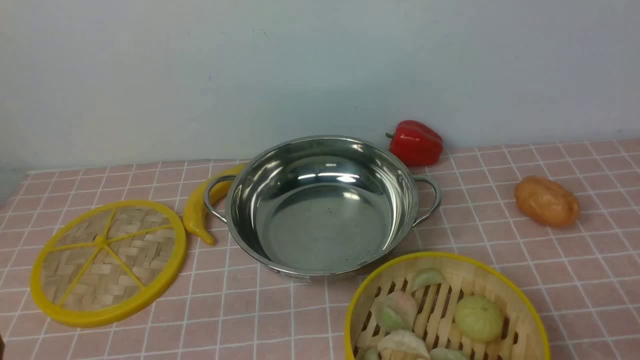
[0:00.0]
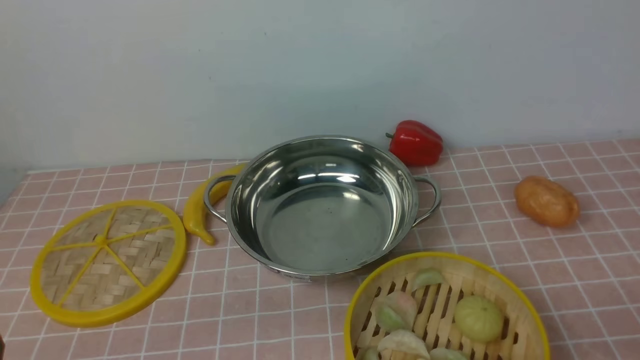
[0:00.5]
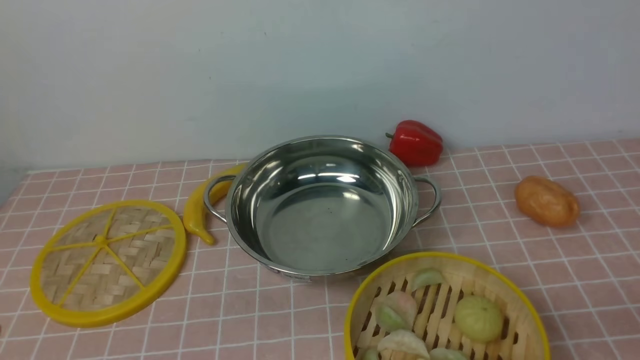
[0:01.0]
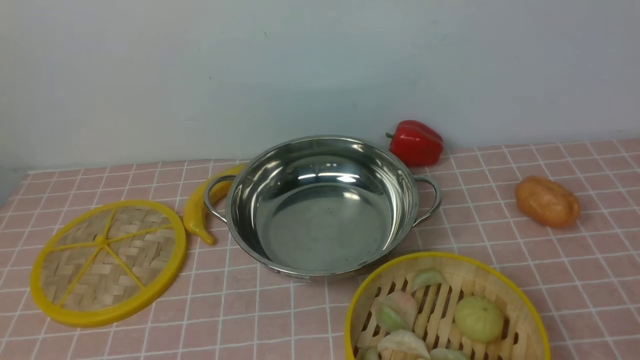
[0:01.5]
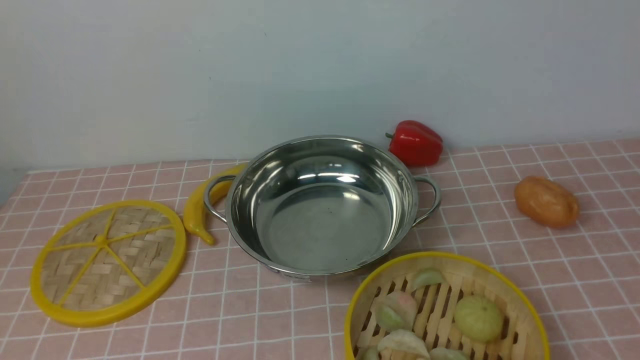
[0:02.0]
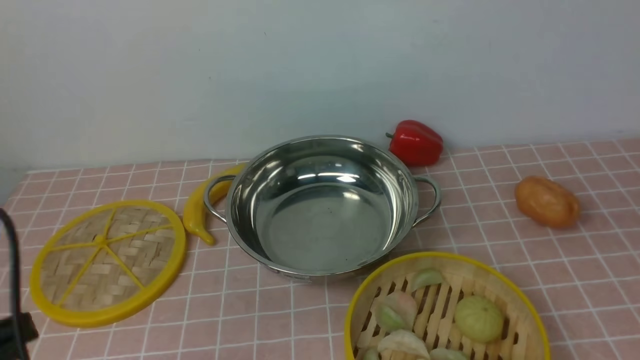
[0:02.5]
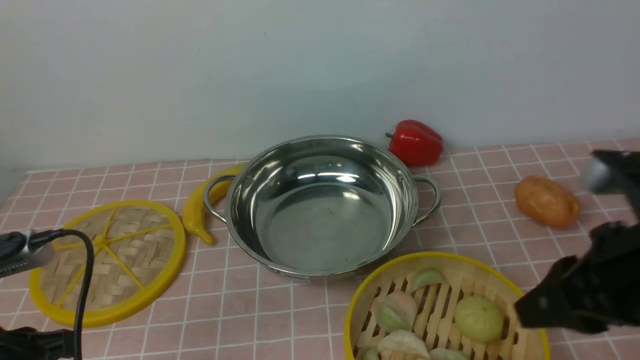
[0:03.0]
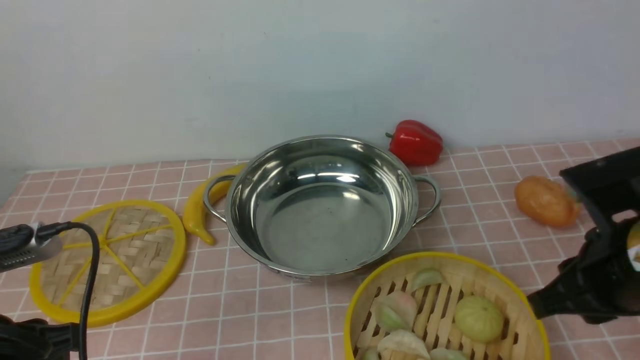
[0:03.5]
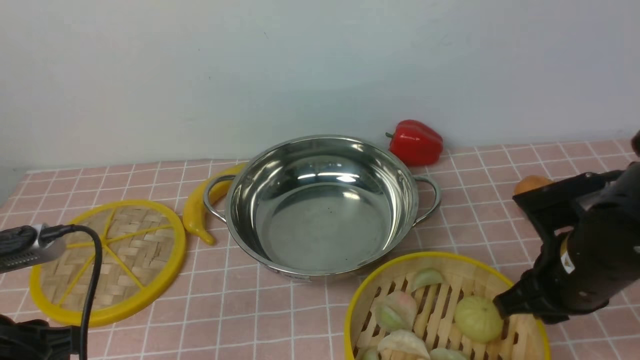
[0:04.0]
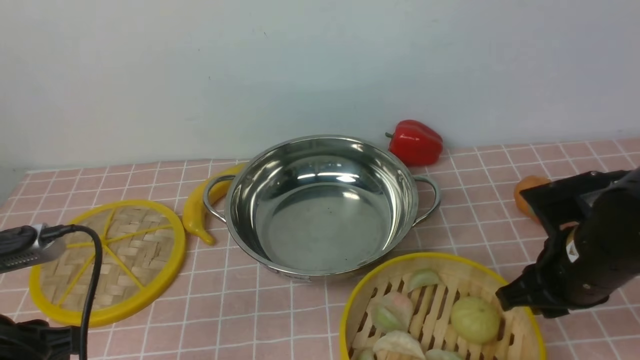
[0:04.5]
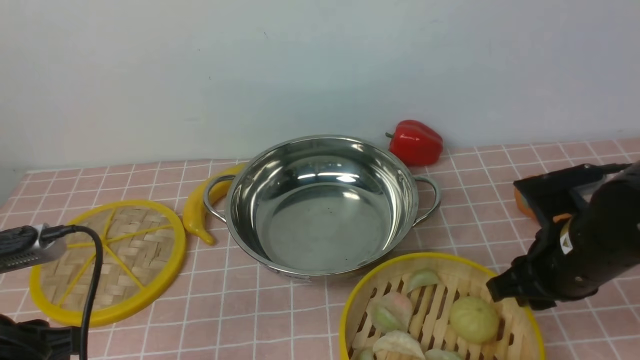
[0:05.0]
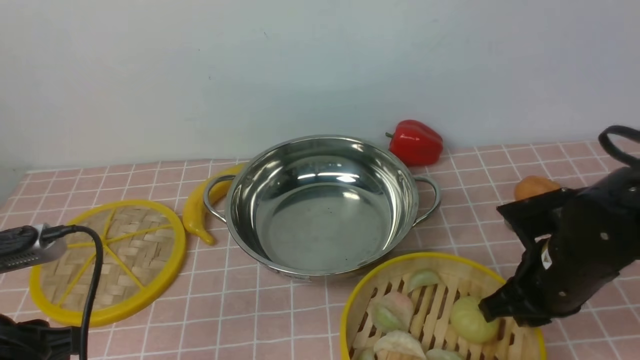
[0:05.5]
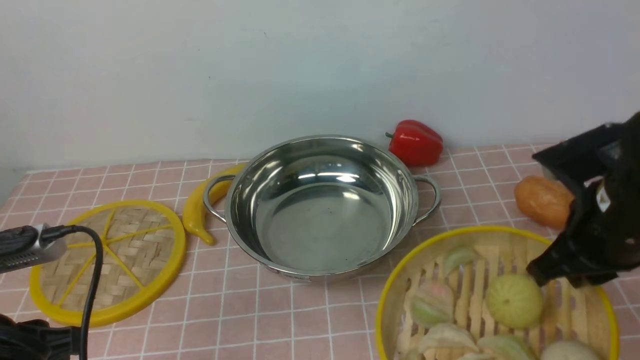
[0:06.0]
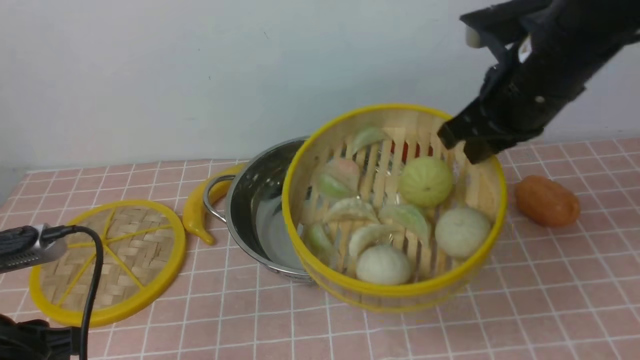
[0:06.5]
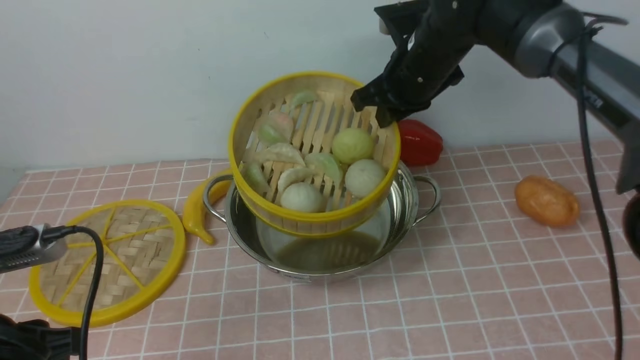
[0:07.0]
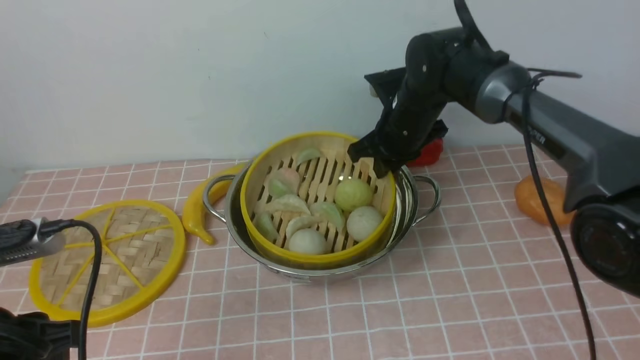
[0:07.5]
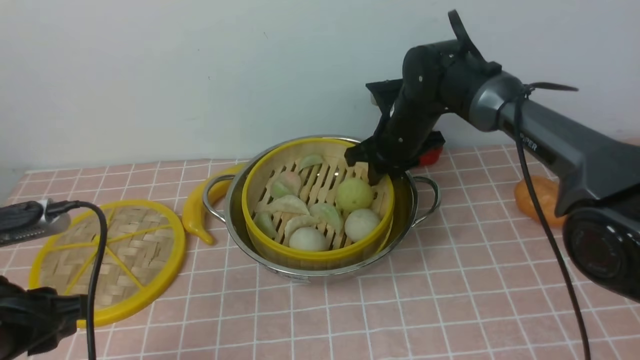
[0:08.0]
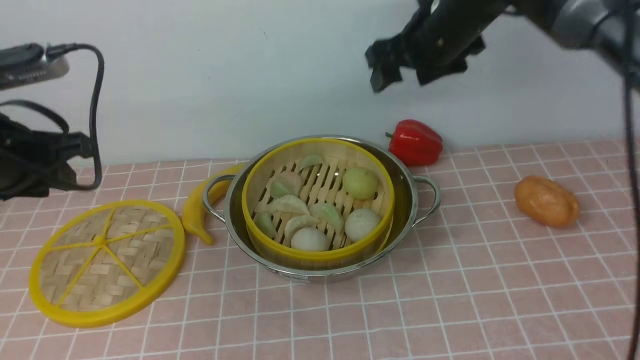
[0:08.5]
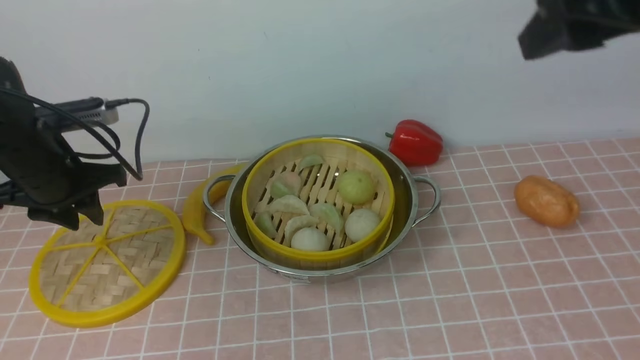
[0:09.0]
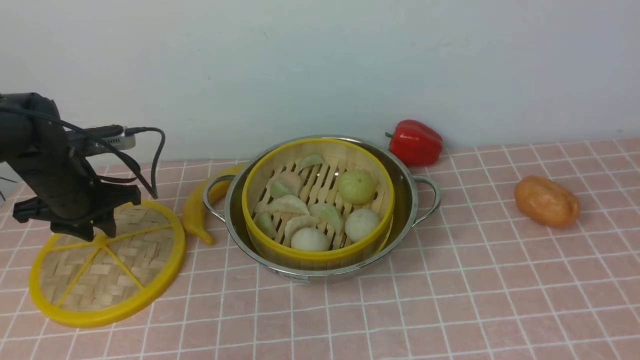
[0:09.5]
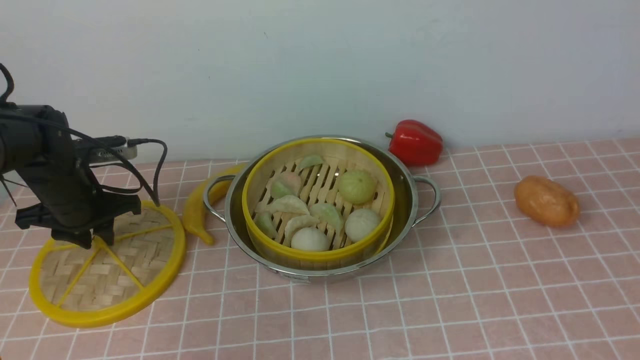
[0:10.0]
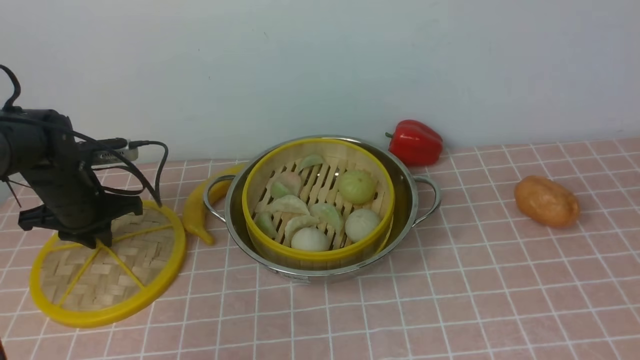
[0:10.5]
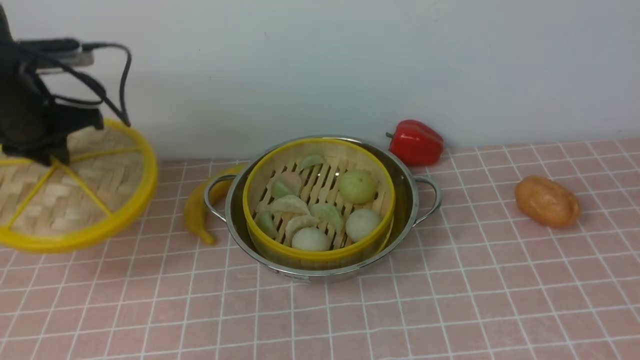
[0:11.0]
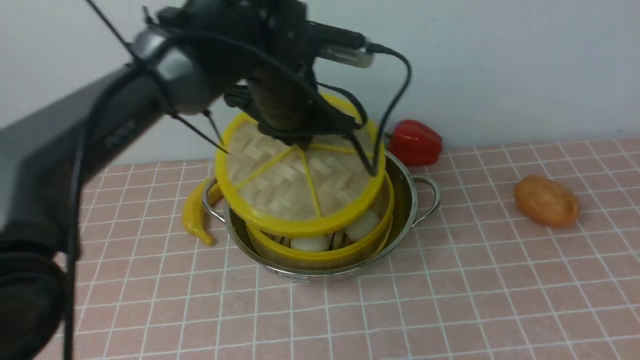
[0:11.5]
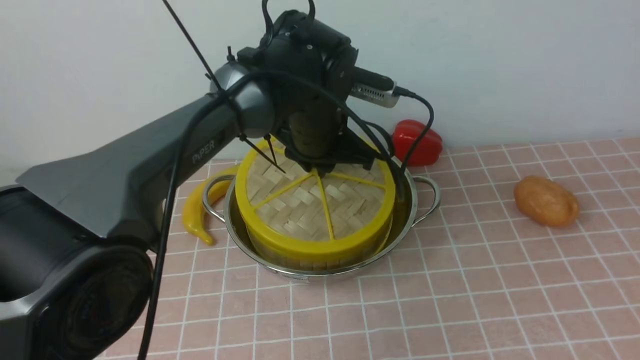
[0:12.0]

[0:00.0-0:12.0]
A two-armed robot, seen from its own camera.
Task of the whole recording: place the steamer in the pot on the pink tablecloth, and put the lid on the steamer.
Step, 0:00.0 to 0:05.5: use the right arm to lift the steamer closest to it.
Step, 0:06.0 to 0:08.0: use the right arm to put the steamer into the iron steamer pot in the middle.
Step, 0:08.5 to 0:10.5: use the left arm to lift the lid of the steamer.
0:02.0 to 0:04.0: The left gripper moves downward and forward, roughly 15 cm. Meanwhile the right gripper heads downward, forward and to the left, covering about 30 cm.
0:04.0 to 0:06.0: The right gripper heads upward, covering about 5 cm.
0:06.0 to 0:08.0: The right gripper goes about 25 cm forward and to the left, and opens up.
0:08.0 to 0:10.0: The left gripper moves forward and downward, roughly 25 cm. Meanwhile the right gripper is displaced backward, upward and to the right by roughly 50 cm.
0:10.0 to 0:12.0: The left gripper is displaced to the right by some 30 cm.

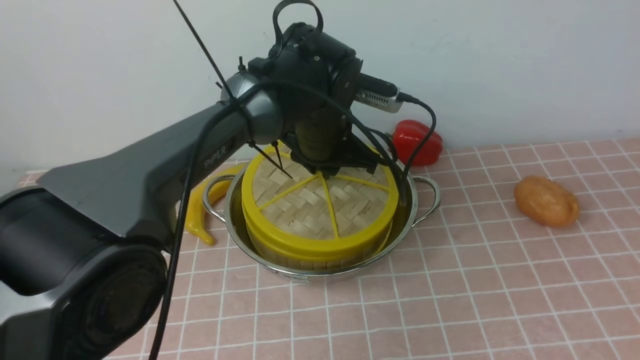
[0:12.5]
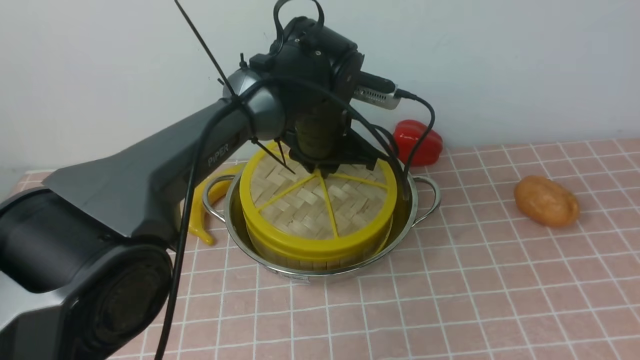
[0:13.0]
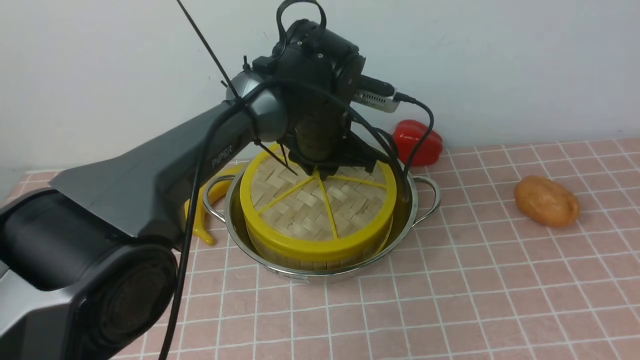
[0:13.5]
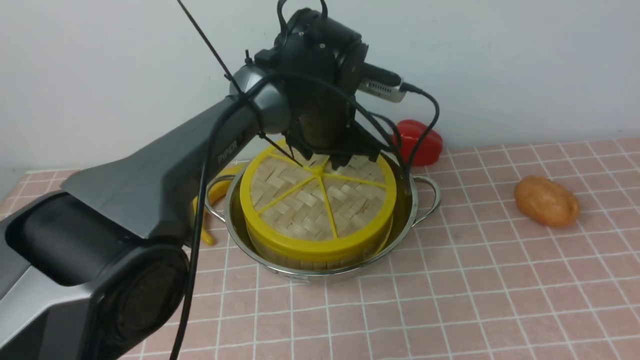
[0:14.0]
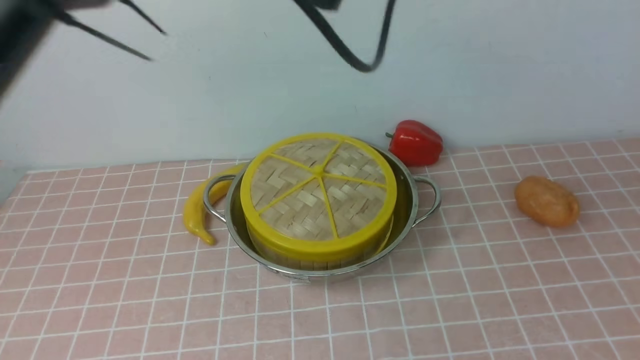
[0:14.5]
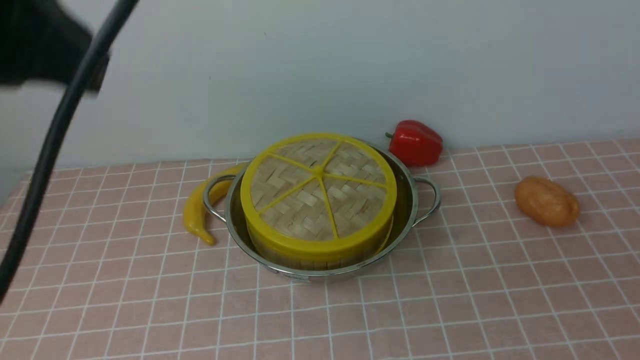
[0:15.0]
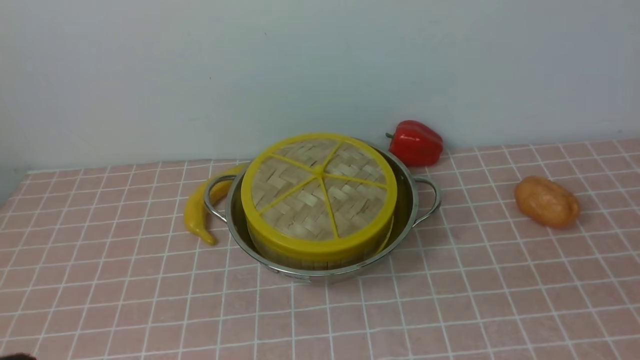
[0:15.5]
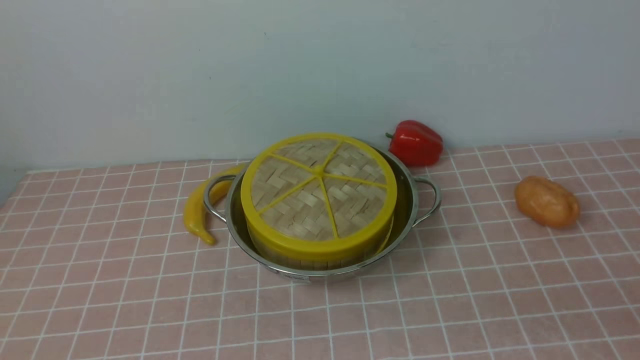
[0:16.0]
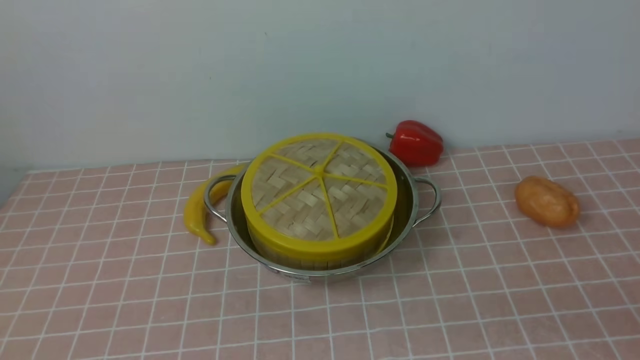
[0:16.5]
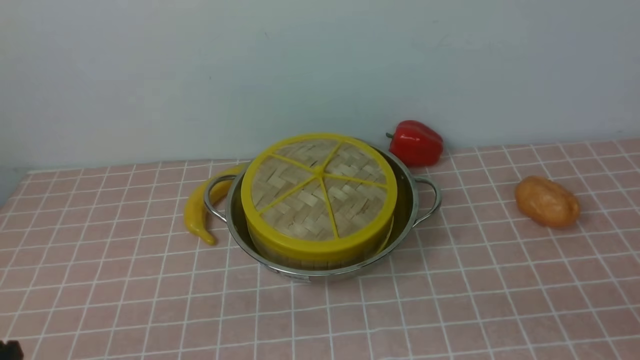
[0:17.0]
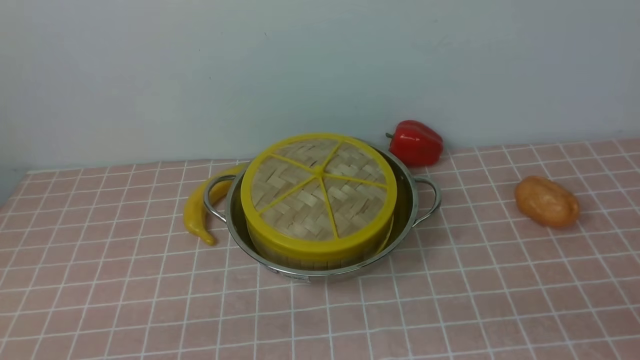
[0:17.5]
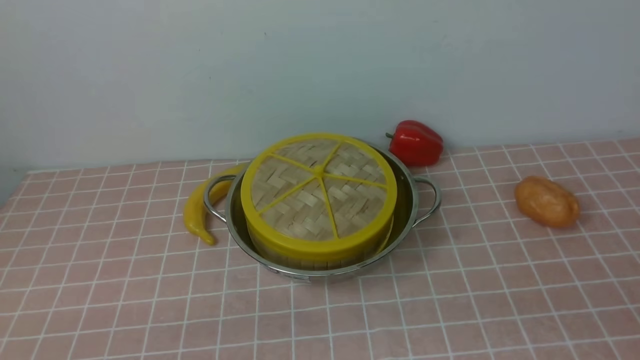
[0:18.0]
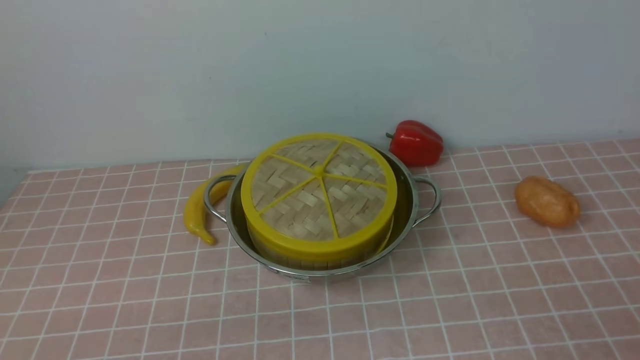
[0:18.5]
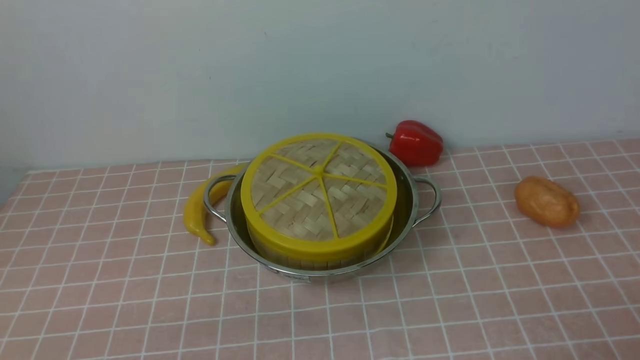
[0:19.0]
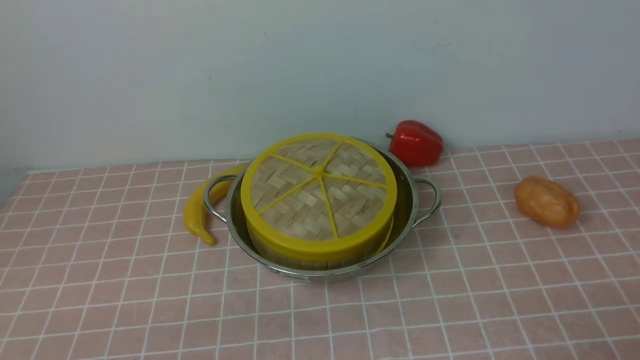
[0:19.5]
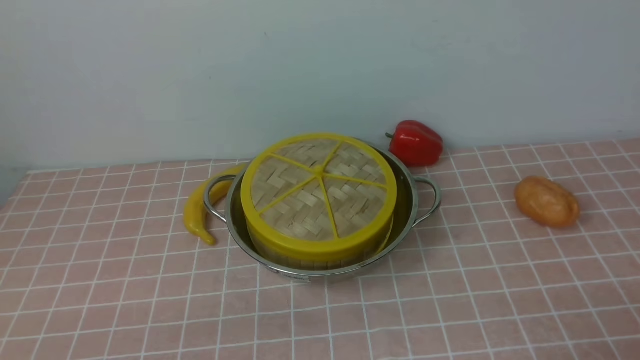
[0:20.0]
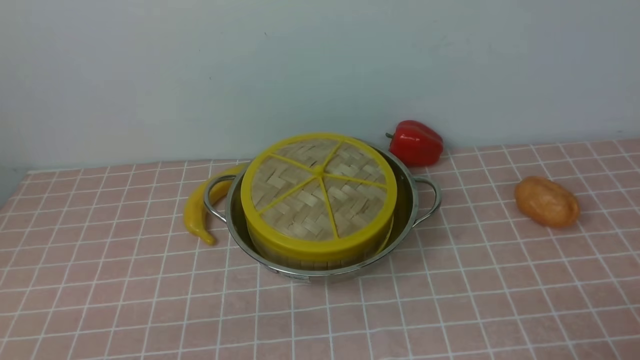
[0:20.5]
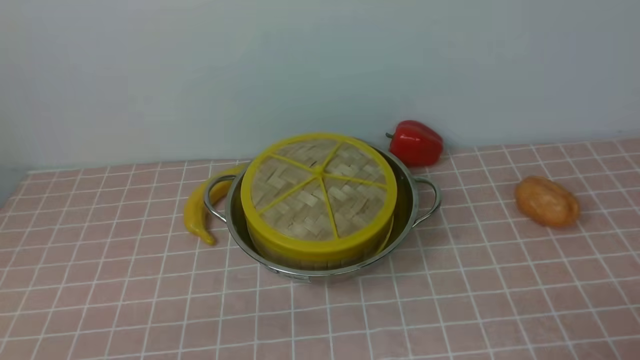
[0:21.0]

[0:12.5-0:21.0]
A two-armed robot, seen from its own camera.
Task of the whole recording: place the steamer in the pot on the pink tablecloth, and put the lid on the steamer.
0:12.5 to 0:14.5: The left gripper heads upward, covering approximately 25 cm, and opens.
0:14.5 to 0:16.5: The right gripper heads downward, covering some 15 cm, and closes, while the left gripper goes about 40 cm backward, to the left and downward, and closes its fingers.
0:19.0 to 0:21.0: Both grippers stay about where they are.
